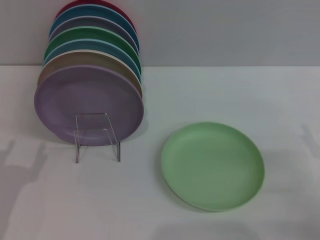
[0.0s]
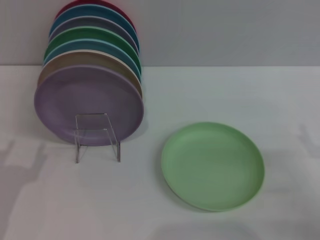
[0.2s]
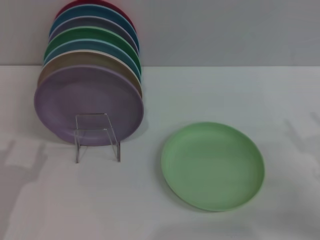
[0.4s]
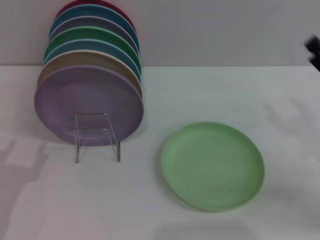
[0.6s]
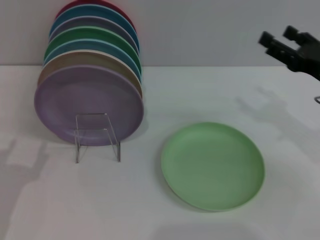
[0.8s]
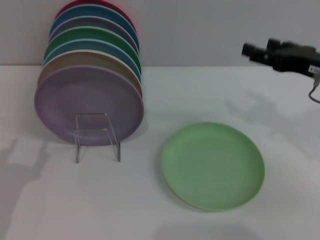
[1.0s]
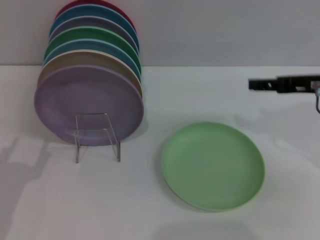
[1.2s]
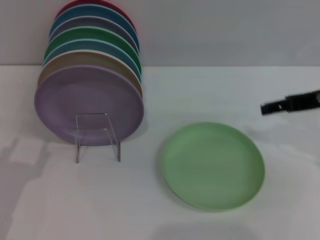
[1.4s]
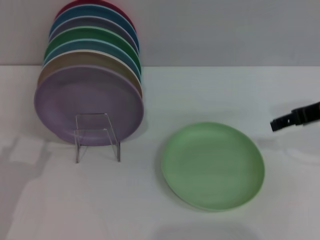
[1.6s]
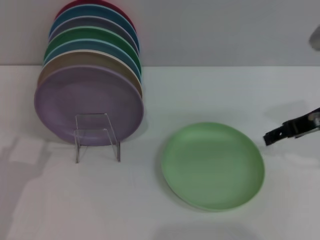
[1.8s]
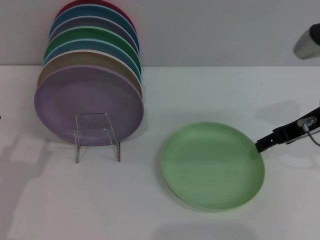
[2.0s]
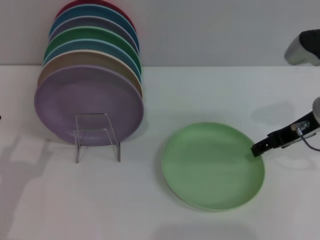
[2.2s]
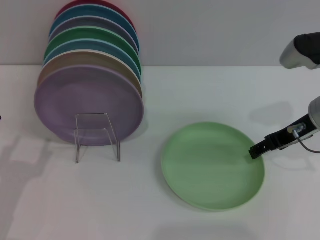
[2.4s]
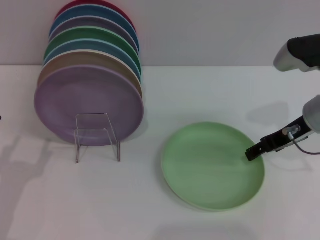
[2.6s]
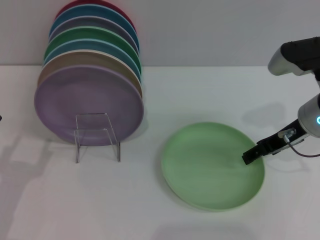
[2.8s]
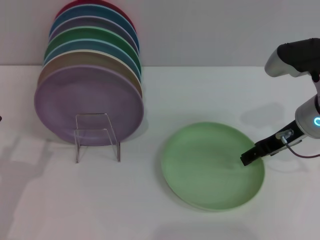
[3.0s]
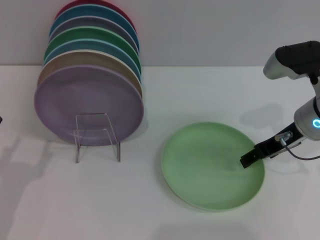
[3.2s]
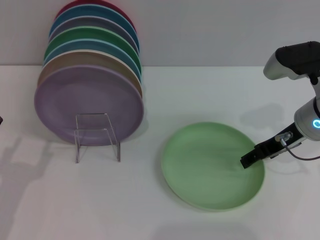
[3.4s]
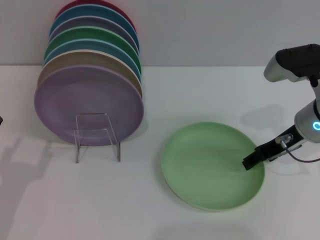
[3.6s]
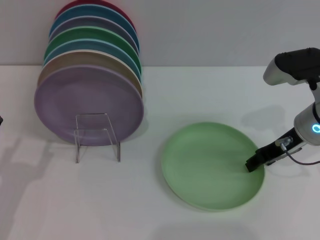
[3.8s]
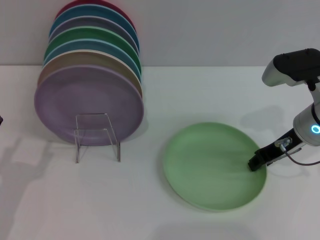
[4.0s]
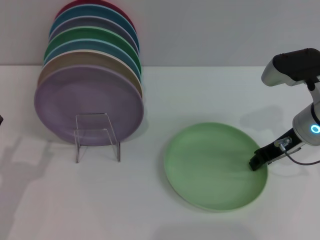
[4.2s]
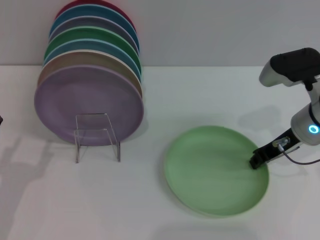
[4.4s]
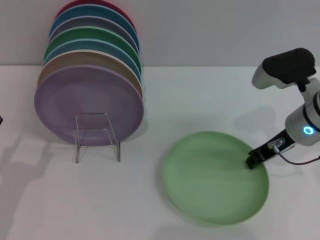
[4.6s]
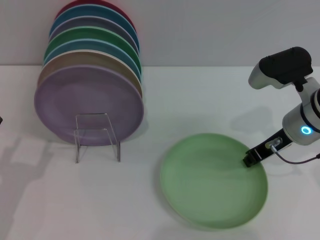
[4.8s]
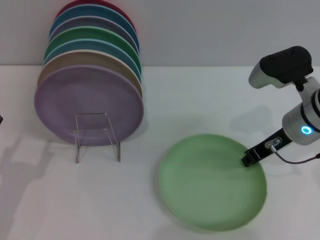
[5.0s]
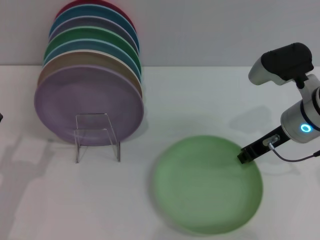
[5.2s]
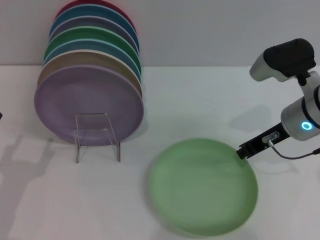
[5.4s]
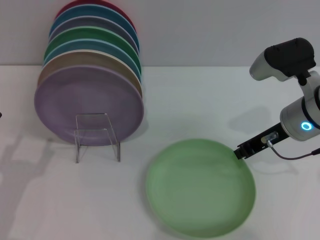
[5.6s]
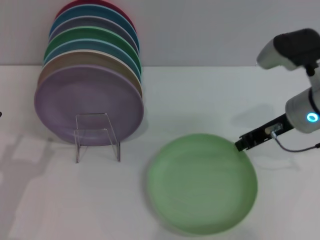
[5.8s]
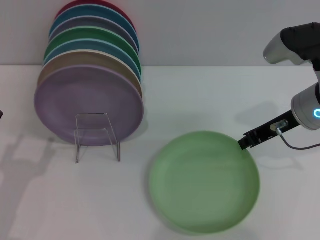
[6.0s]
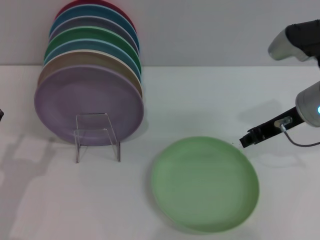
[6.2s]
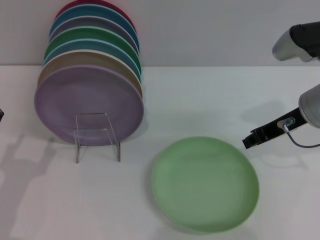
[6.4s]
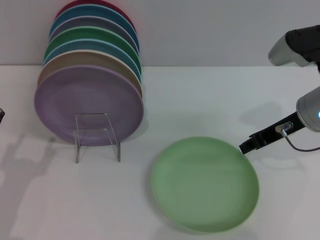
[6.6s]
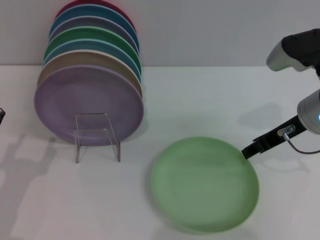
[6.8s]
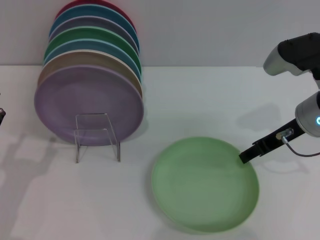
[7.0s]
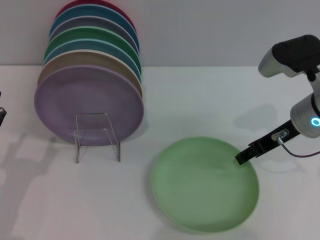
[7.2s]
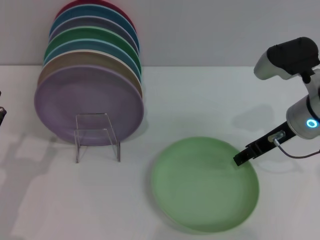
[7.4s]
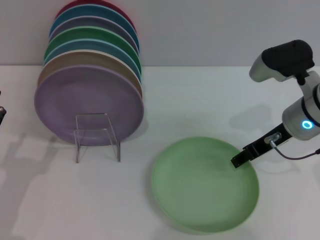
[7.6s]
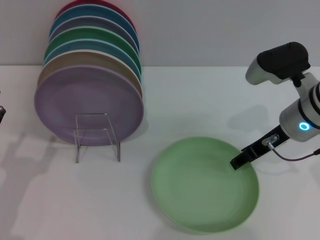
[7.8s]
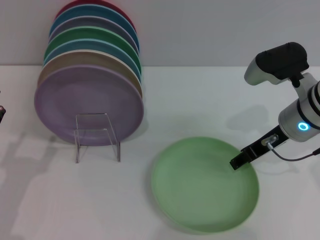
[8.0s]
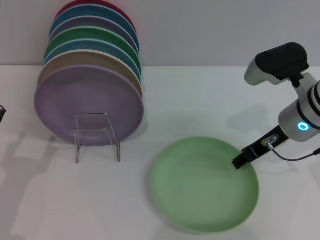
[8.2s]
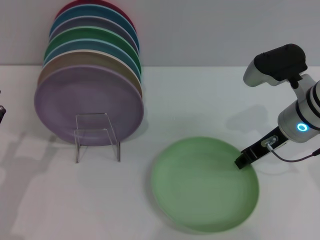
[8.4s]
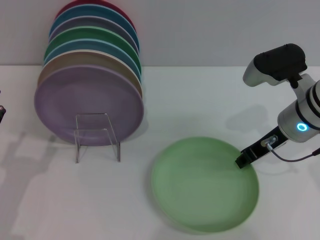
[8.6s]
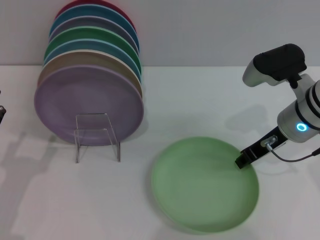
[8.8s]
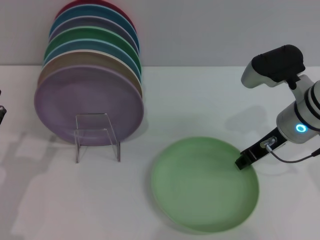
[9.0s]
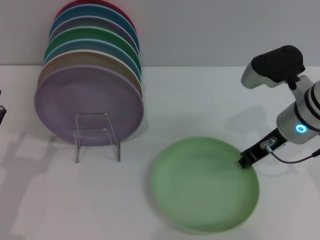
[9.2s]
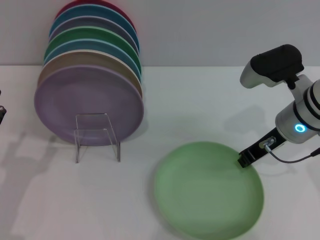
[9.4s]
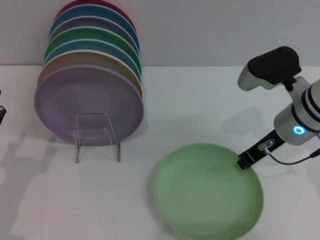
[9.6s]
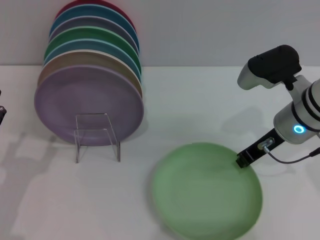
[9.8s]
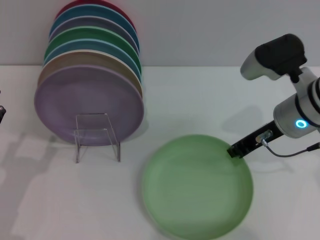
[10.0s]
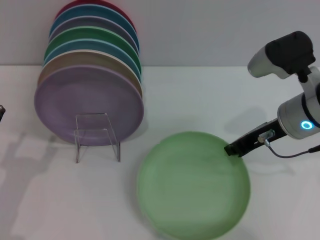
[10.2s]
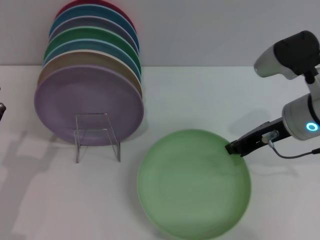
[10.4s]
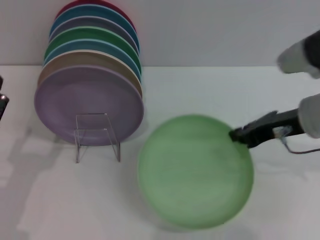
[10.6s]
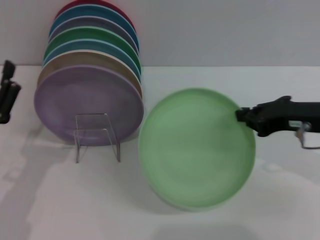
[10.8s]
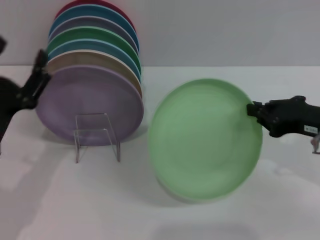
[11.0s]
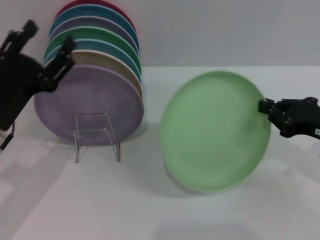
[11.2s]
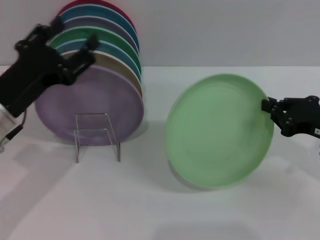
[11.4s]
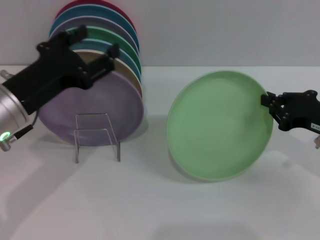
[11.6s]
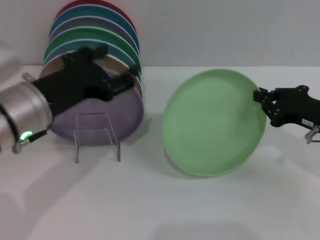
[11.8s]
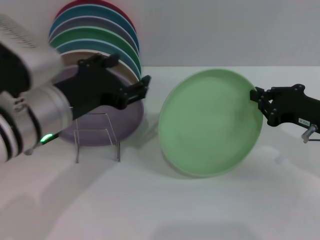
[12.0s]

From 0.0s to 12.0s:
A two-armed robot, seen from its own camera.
Task of the whole recording: Grip the plate with one hand, pass it to the other, then set it on the shelf.
Step, from 0.0s to 10.6s: Pick up the plate with the right gripper.
From 0.0s to 1.6s: The right gripper travels upward and forward by some 20 cm.
From 1.6s to 3.0s: The right gripper heads downward, covering roughly 5 cm.
From 3.0s to 4.4s: The right gripper closes its fingers.
From 4.4s to 6.0s: The grippers make only small movements.
From 6.0s to 7.6s: The right gripper opens up.
From 7.6s to 9.0s: The right gripper closes its fingers.
From 9.0s to 10.4s: The grippers stay close to where they were, moving slightly.
From 10.4s to 12.0s: The right gripper travels to the right and downward by approximately 10 cm, while the left gripper shifts roughly 20 cm upward, to the right and forward.

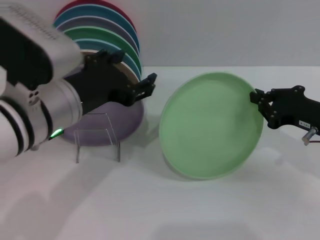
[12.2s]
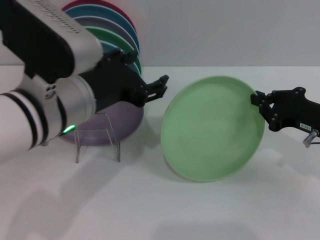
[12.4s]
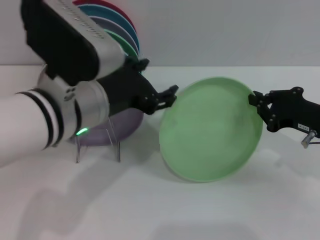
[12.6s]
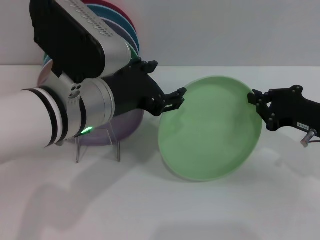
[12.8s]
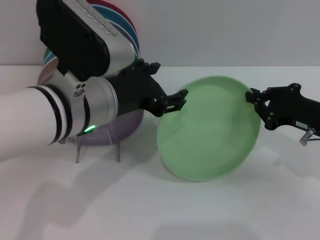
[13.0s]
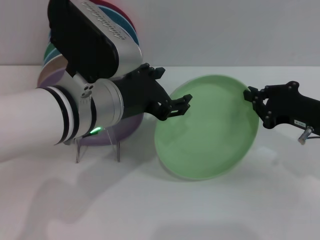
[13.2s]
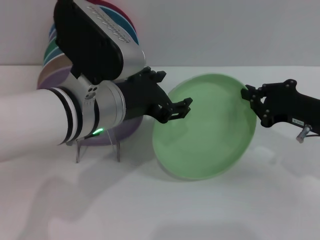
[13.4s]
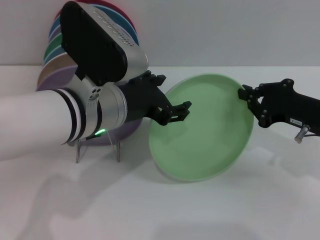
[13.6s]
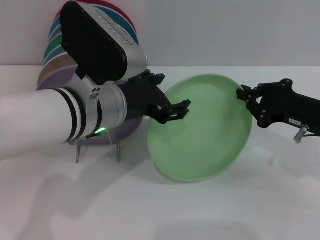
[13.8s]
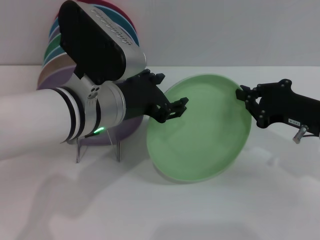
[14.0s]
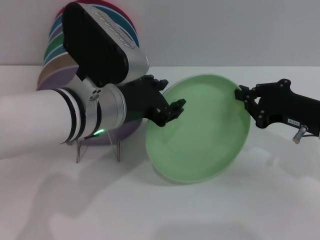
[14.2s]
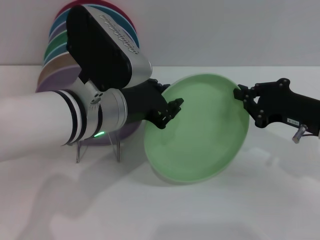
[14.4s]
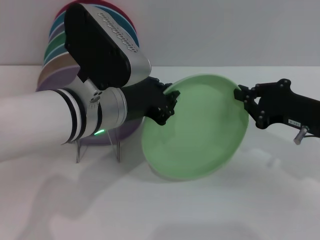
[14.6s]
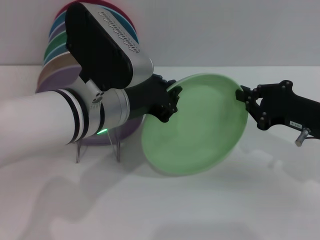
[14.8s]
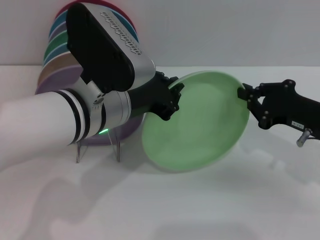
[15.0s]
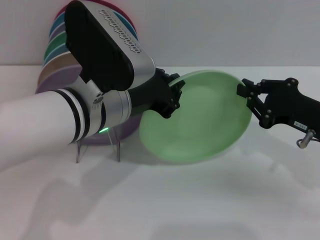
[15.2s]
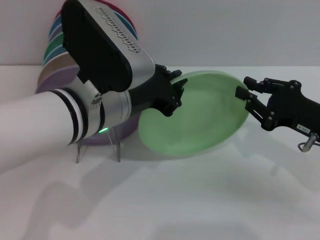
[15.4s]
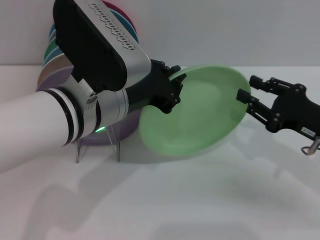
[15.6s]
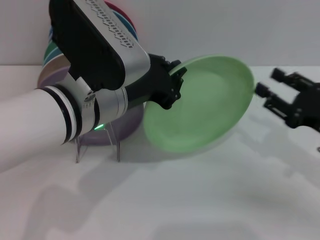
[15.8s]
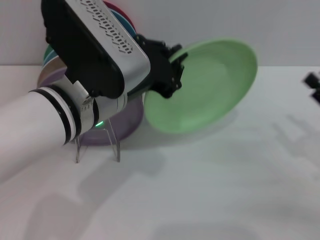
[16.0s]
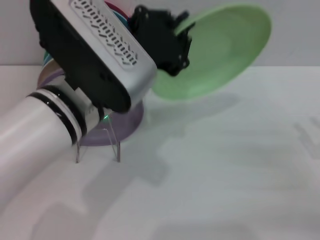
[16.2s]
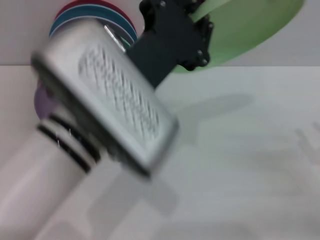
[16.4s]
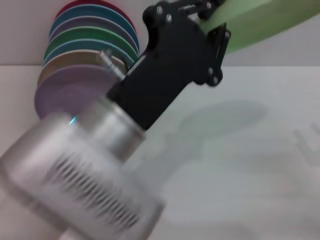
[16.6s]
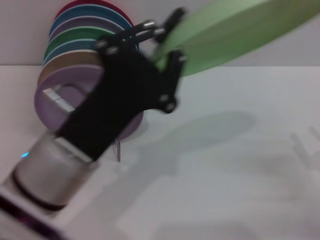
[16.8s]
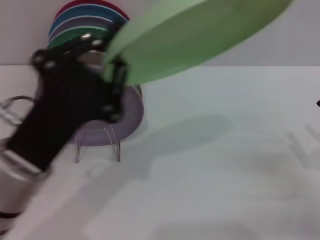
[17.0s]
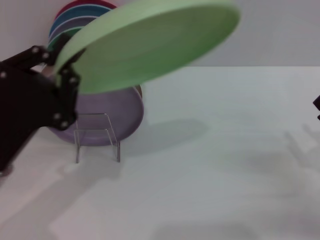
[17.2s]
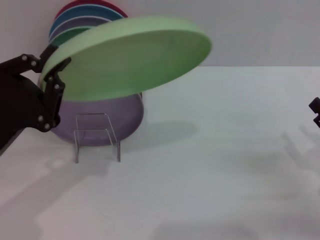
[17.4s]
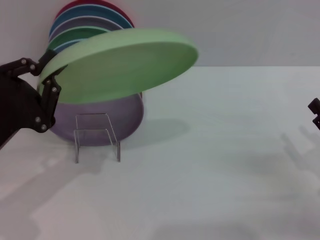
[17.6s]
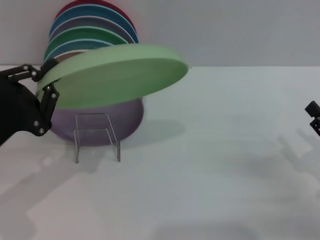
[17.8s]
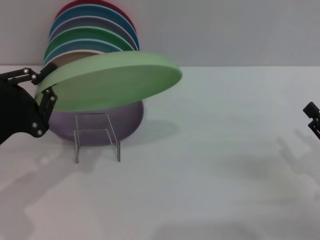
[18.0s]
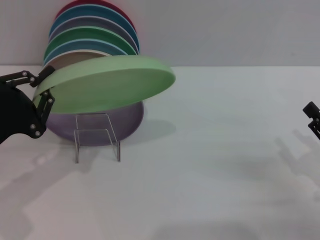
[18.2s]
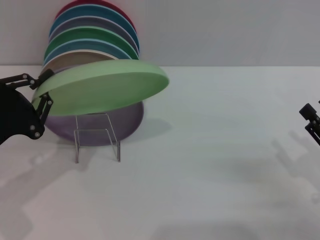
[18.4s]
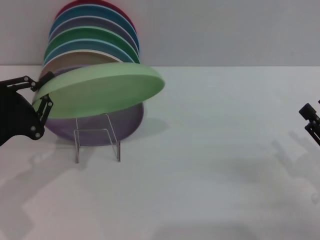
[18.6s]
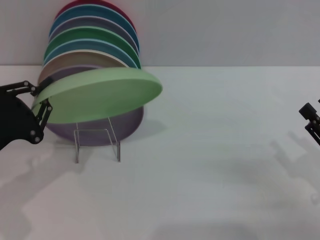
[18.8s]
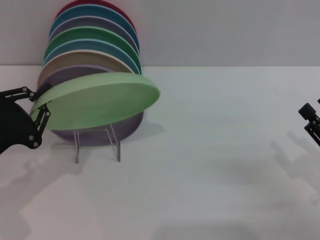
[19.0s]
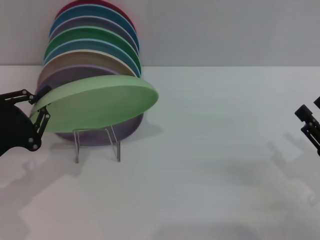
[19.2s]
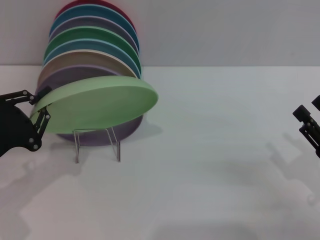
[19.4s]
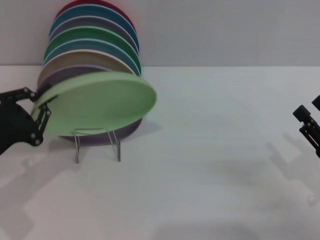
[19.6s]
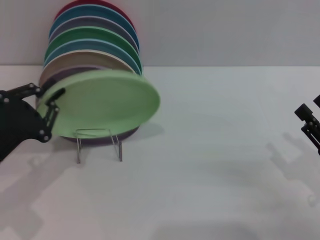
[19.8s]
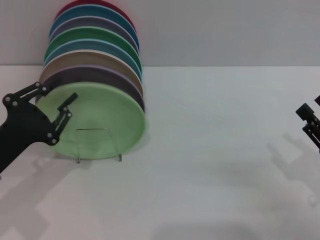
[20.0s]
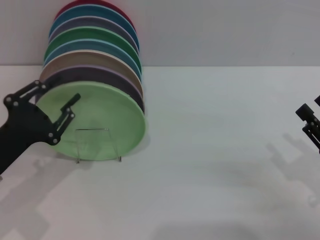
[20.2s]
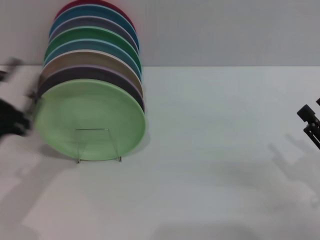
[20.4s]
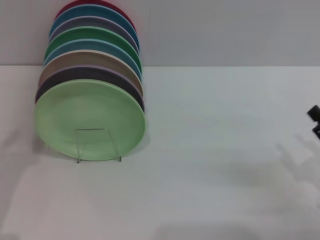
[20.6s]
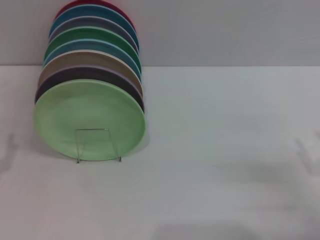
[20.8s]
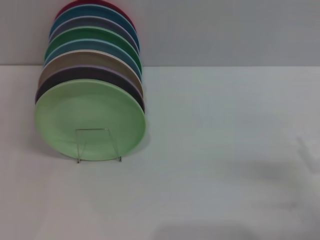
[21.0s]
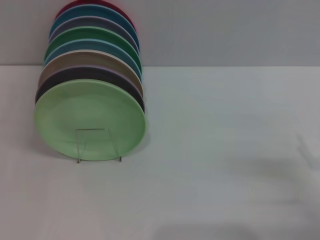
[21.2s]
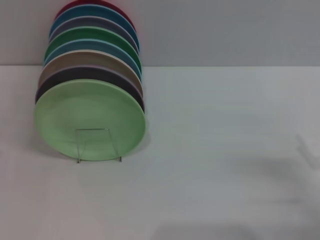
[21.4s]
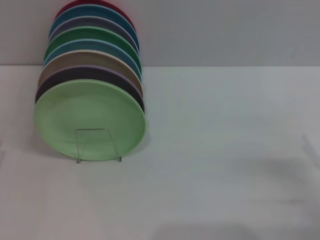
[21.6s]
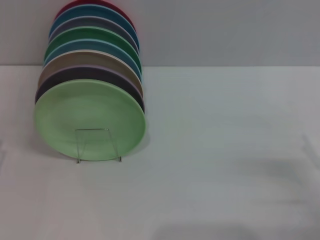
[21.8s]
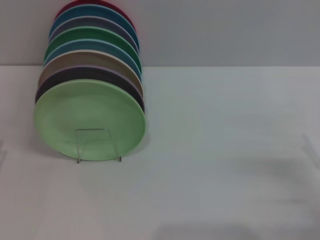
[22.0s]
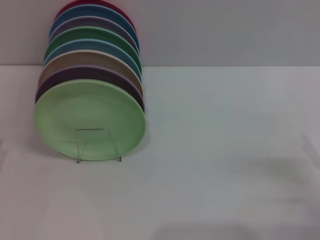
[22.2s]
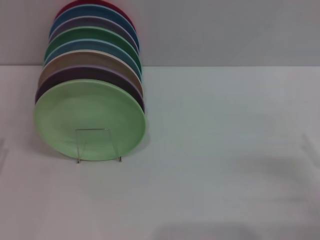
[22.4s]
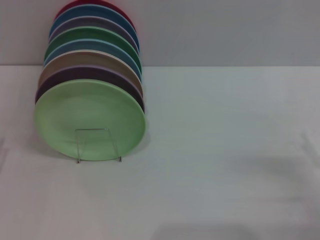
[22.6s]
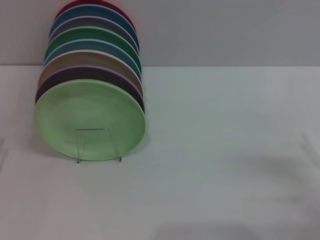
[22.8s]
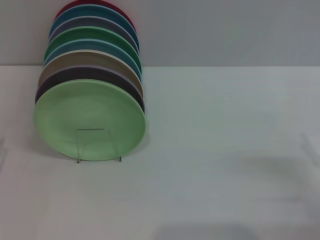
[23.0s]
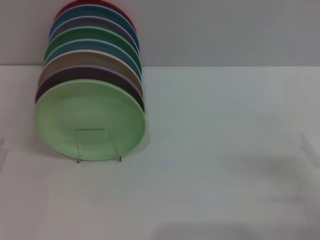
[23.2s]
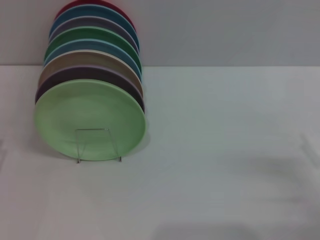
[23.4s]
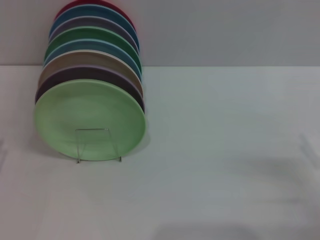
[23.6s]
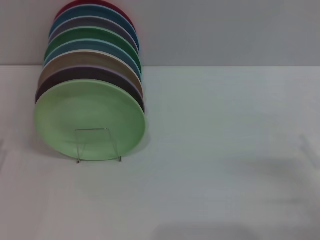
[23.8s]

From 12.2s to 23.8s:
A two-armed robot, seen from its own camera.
Task of the whole recording: Grip the plate with one hand, pass it to the other, then set it on the shelf.
Step, from 12.2s to 15.8s: Pass the plate from the right gripper to the left gripper.
Step, from 16.0s to 20.2s: Place the plate on the shelf with the left gripper.
From 12.2s to 13.6s: The left gripper changes place by about 5 cm.
From 13.6s to 15.0s: The left gripper closes up.
From 15.0s to 16.6s: The left gripper heads backward, covering about 10 cm. Meanwhile the right gripper travels backward and to the right by about 10 cm, and opens up.
From 16.6s to 18.0s: The left gripper shifts roughly 20 cm to the left and downward.
From 18.0s to 19.4s: The grippers stay close to where they were, moving slightly.
From 19.4s to 21.0s: The left gripper heads backward, covering approximately 5 cm, and opens up.
From 22.4s to 23.8s: Both grippers stay about where they are.
